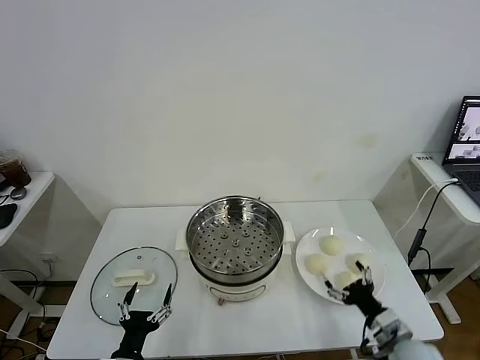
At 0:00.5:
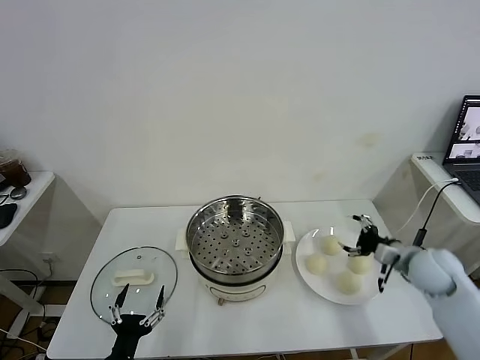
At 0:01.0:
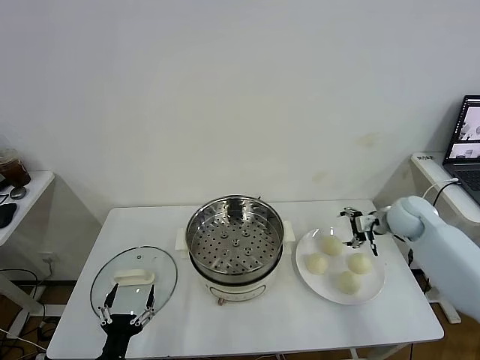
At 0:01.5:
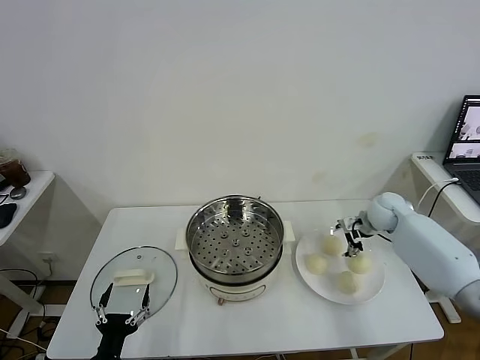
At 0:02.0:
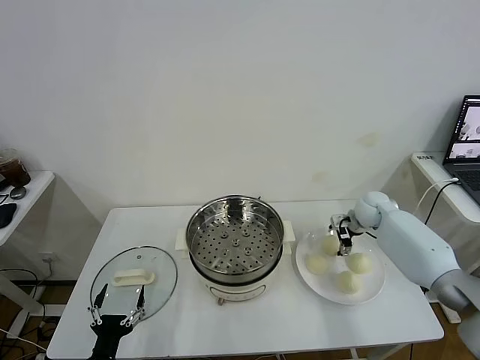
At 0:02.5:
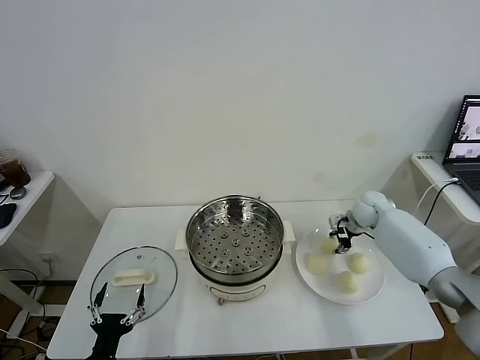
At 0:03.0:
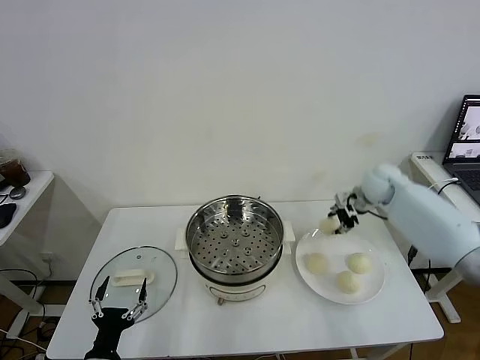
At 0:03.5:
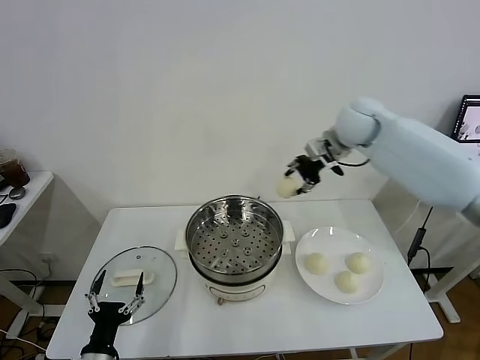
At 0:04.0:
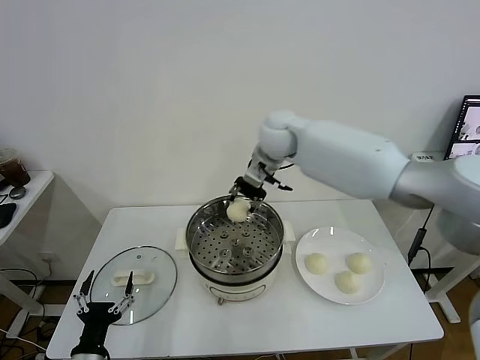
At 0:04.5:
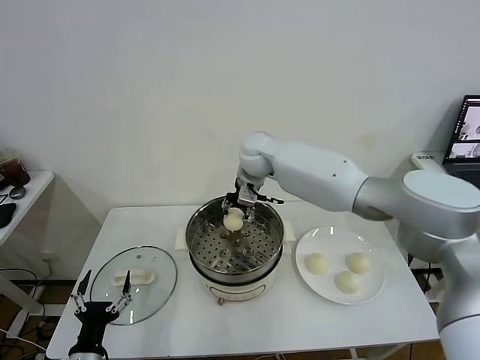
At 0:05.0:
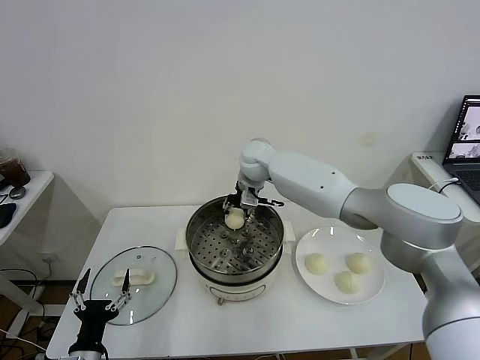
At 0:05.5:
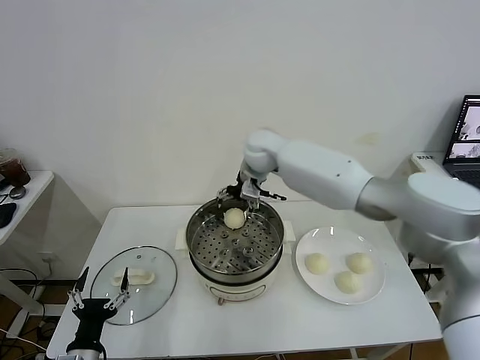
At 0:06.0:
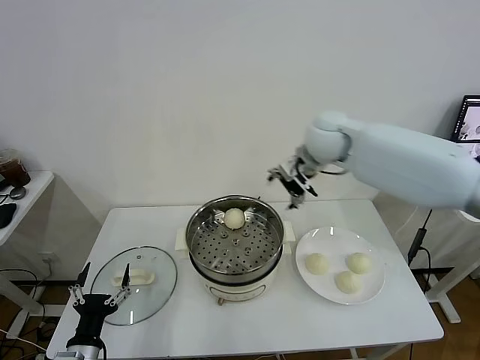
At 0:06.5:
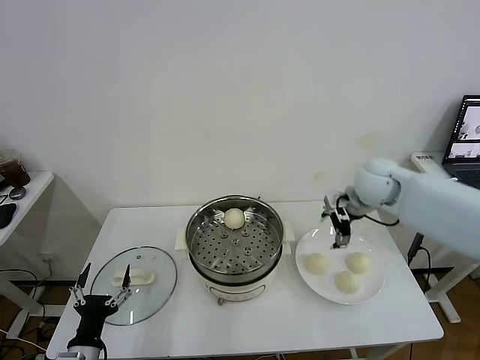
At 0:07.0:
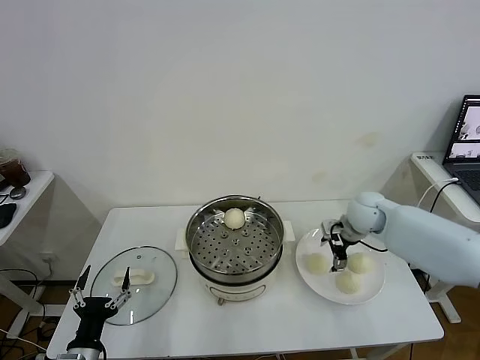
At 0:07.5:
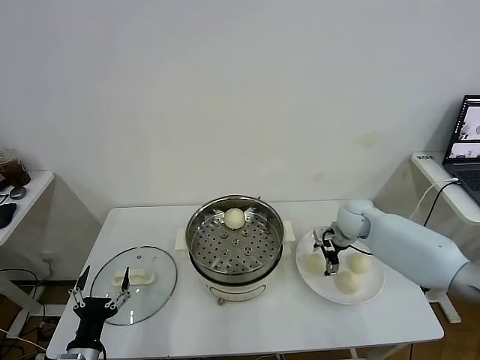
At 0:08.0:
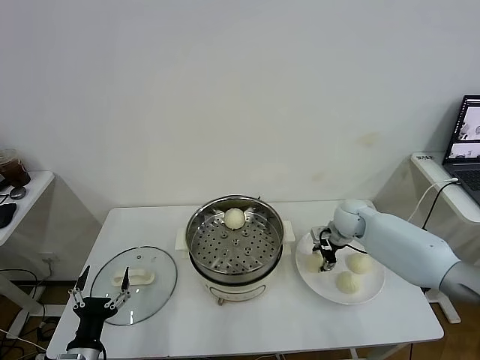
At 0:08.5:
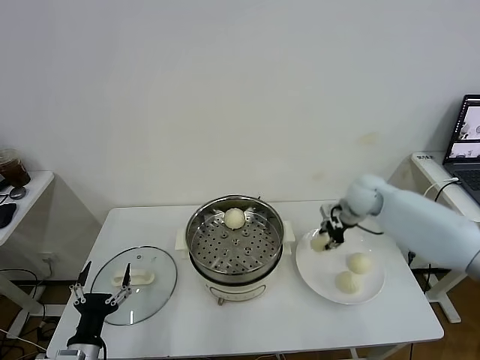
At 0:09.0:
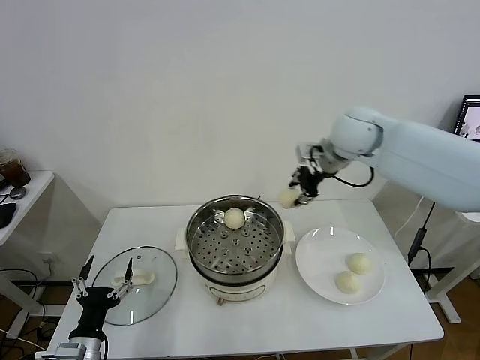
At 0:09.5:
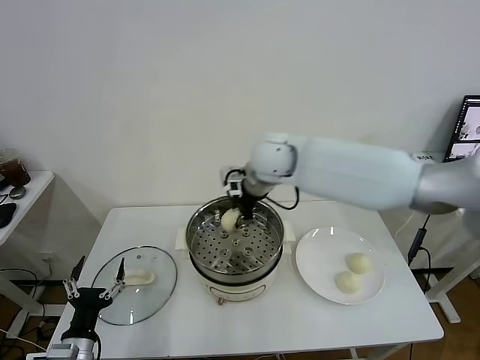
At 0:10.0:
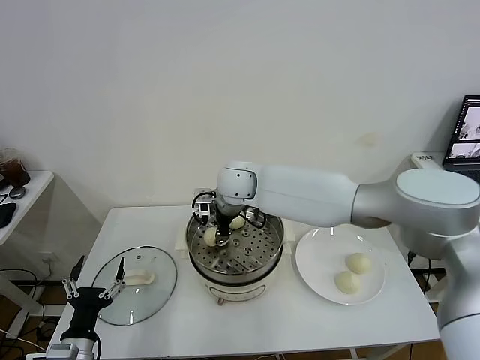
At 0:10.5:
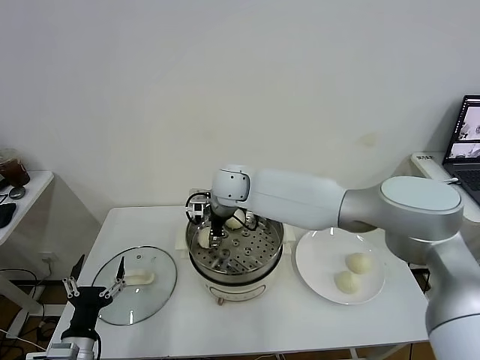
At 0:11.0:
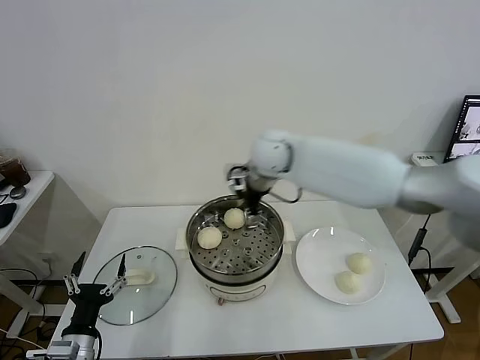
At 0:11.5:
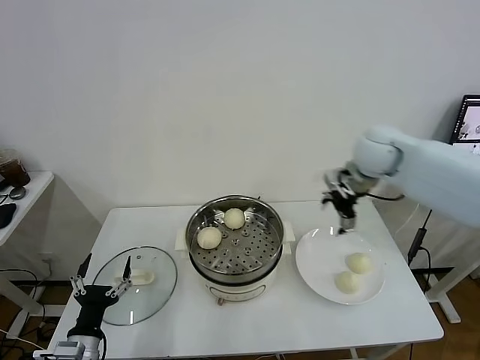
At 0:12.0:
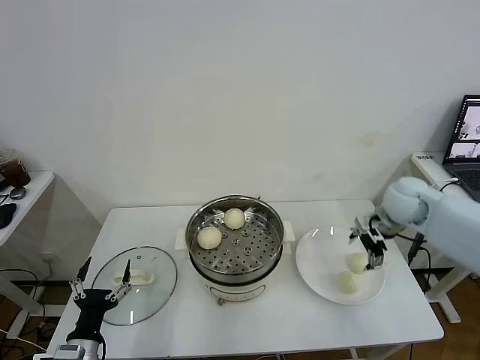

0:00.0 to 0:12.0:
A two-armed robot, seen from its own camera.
Task of the whole recording: take steamed baozi put them in steamer.
Step, 0:00.0 to 0:02.5: Grasp the baozi in the plate with right gripper.
Step, 0:03.0 to 0:05.0: Place the baozi on the steamer with right gripper.
Step, 0:05.5 to 0:08.0: Grasp the baozi in the plate with right gripper.
Step, 0:08.5 to 0:10.5: Place the baozi on the steamer with right gripper.
0:02.0 to 0:04.0: The right gripper is displaced to the left and upward by approximately 35 cm, and closes.
0:04.0 to 0:06.0: The right gripper is displaced to the right by approximately 10 cm, and opens.
0:06.0 to 0:08.0: The right gripper moves downward and to the right, roughly 25 cm, and closes.
0:08.0 to 0:10.0: The right gripper travels to the left and upward by some 35 cm, and closes its fingers.
0:10.0 to 0:12.0: The right gripper shifts some 35 cm to the right, and opens.

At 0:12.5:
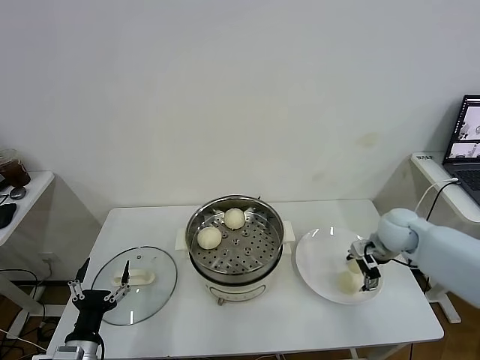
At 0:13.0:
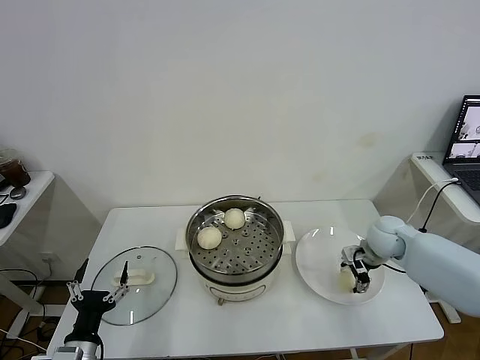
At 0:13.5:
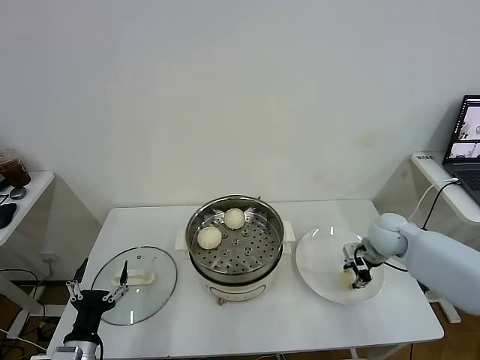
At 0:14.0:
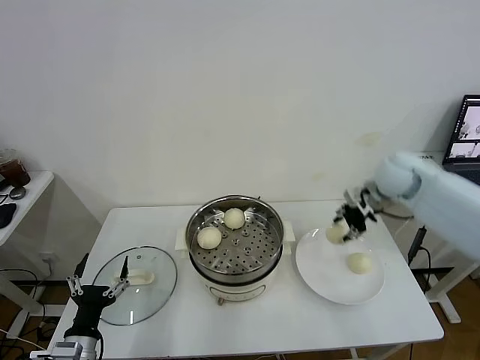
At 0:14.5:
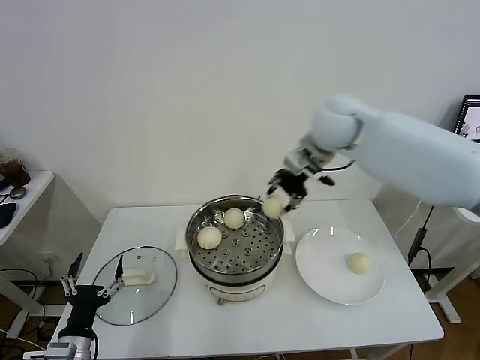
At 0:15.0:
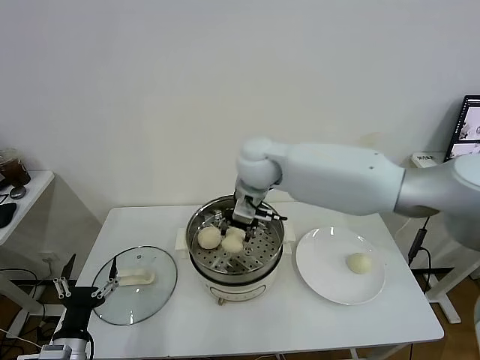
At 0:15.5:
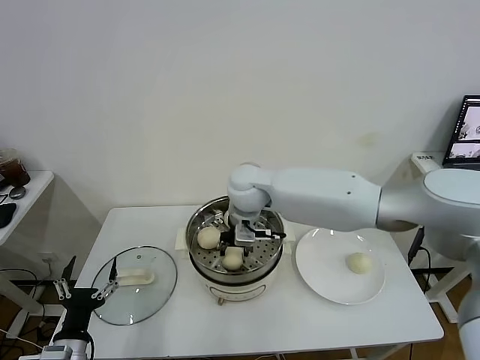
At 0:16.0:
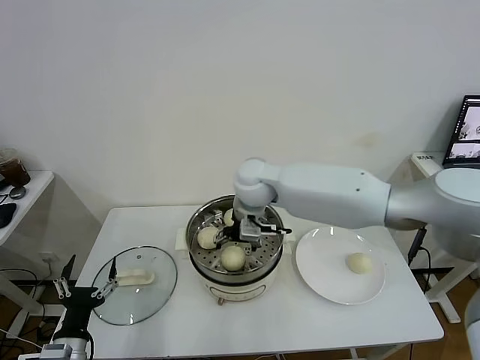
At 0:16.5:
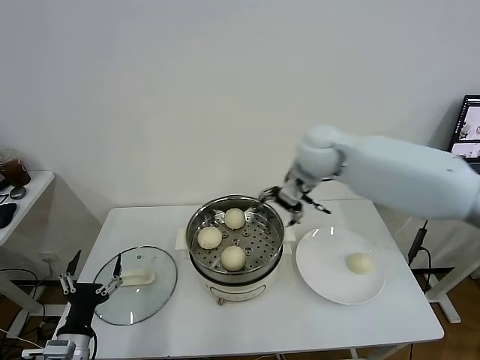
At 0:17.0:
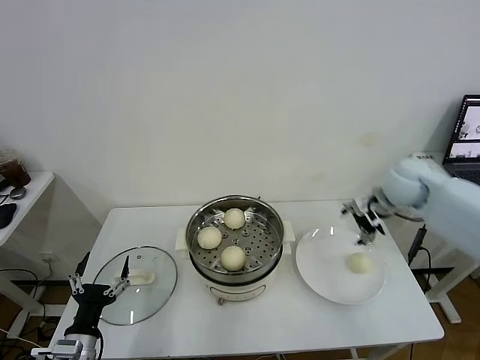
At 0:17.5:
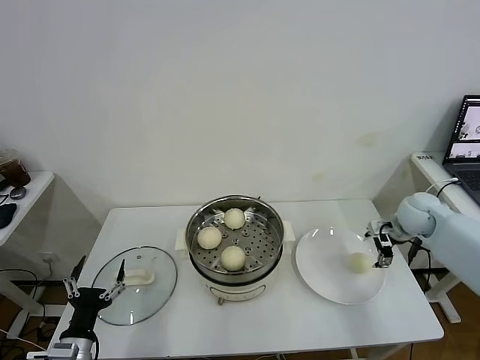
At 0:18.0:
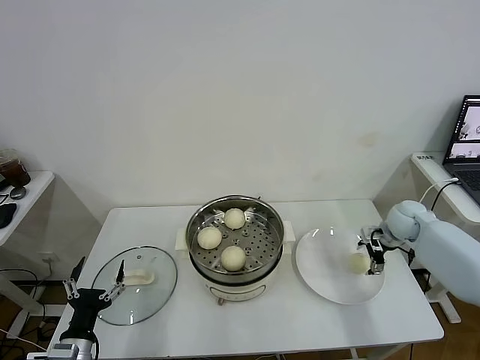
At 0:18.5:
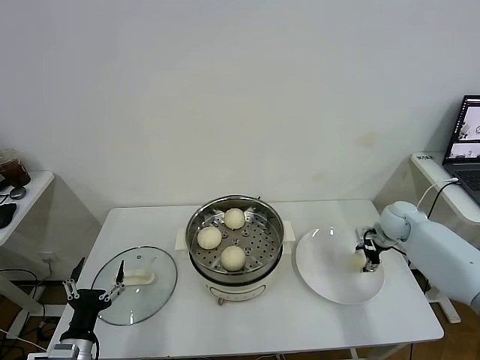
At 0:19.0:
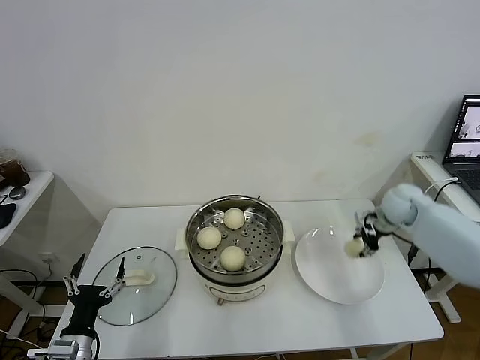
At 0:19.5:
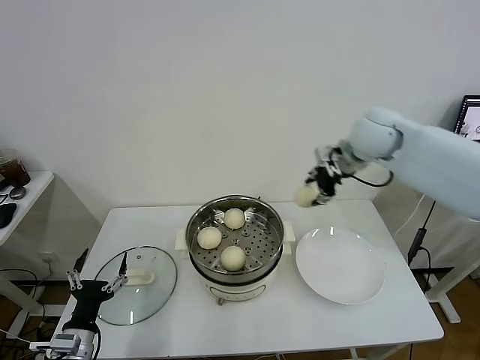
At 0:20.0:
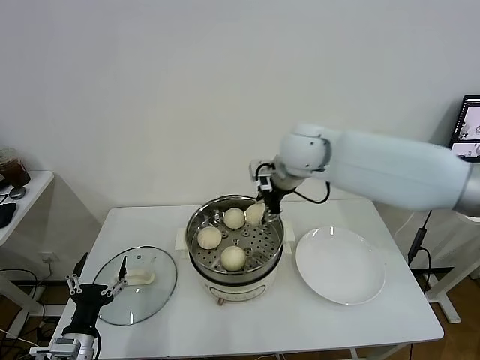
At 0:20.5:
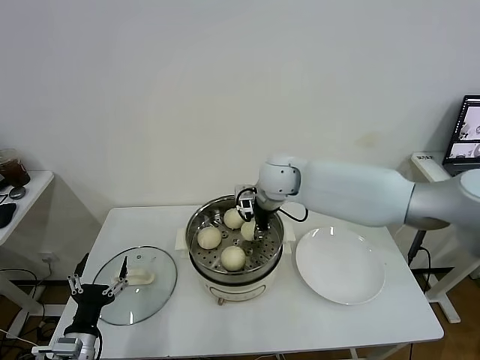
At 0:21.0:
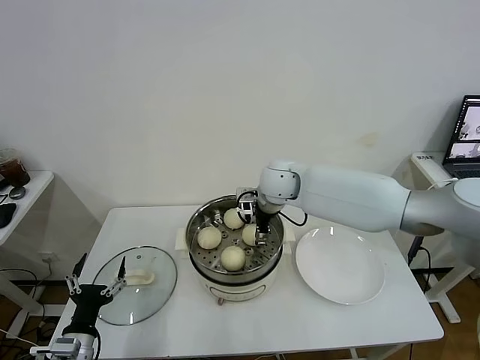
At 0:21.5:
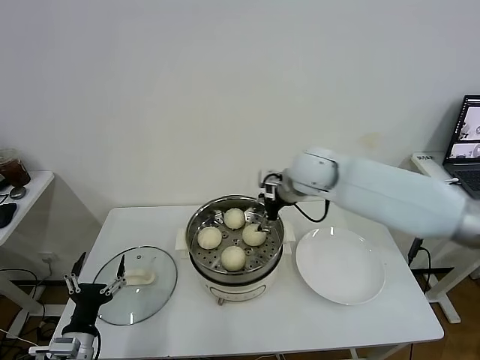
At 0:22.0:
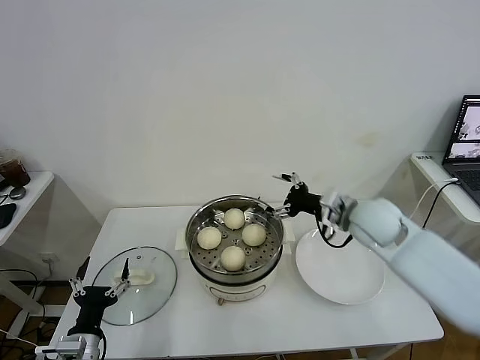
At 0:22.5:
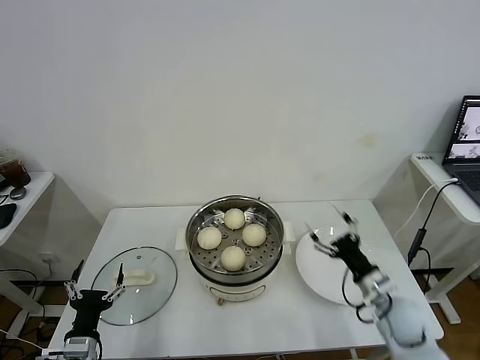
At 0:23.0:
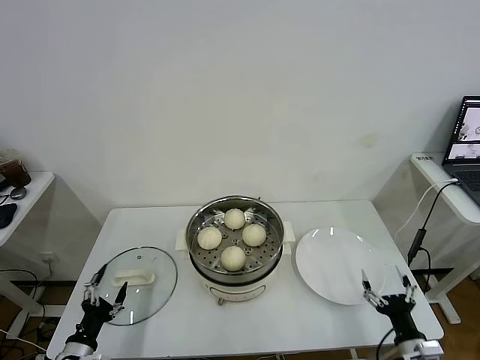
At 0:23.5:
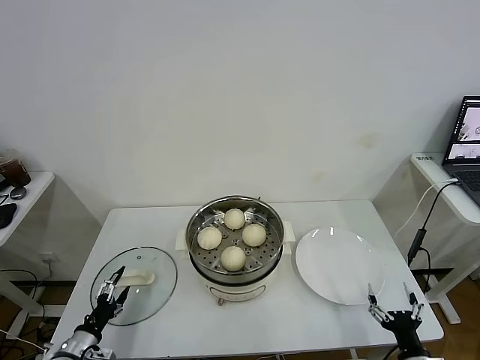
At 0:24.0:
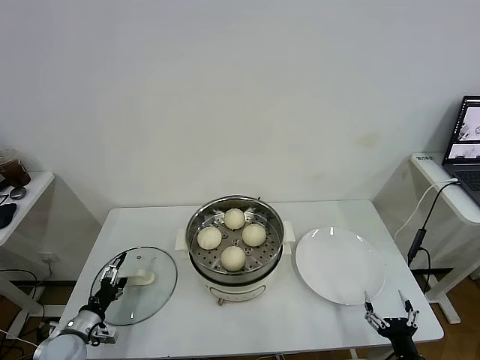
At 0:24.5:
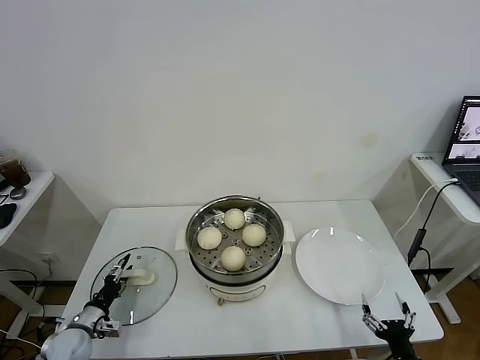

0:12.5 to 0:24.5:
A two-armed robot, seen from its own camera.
Task of the whole recording: take steamed baozi put them in steamer.
Step, 0:13.5 to 0:15.5: Place the baozi on the steamer with right gripper.
Step, 0:16.5 to 0:18.5: Grasp the baozi in the plate with right gripper.
Step, 0:19.0 to 0:21.0: Place the baozi on the steamer with right gripper.
0:12.5 to 0:14.5: The right gripper travels upward and to the left by about 30 cm, and closes up.
0:14.5 to 0:16.5: The right gripper goes roughly 5 cm downward, moves about 15 cm to the left and comes back, and opens up.
0:16.5 to 0:18.5: The right gripper shifts roughly 35 cm to the right and downward, and closes.
0:18.5 to 0:20.5: The right gripper travels to the left and upward by roughly 35 cm.
0:20.5 to 0:22.5: The right gripper moves to the right, downward and backward, some 40 cm, and opens.
0:22.5 to 0:24.5: The right gripper travels backward and downward by some 20 cm, while the left gripper shifts approximately 15 cm forward, to the left and downward, and closes.

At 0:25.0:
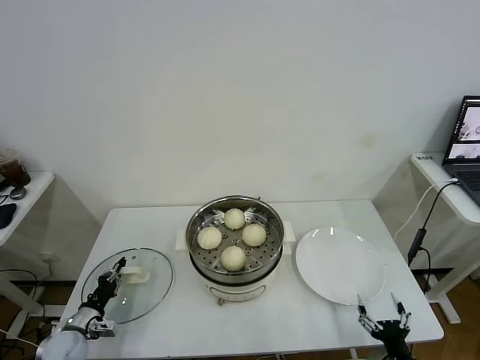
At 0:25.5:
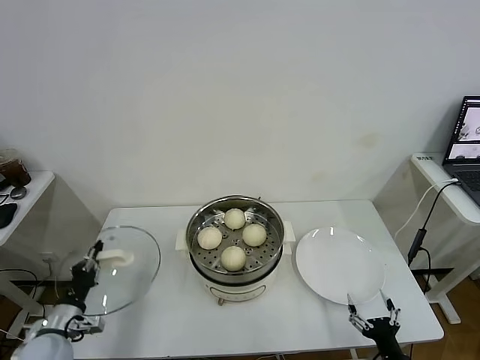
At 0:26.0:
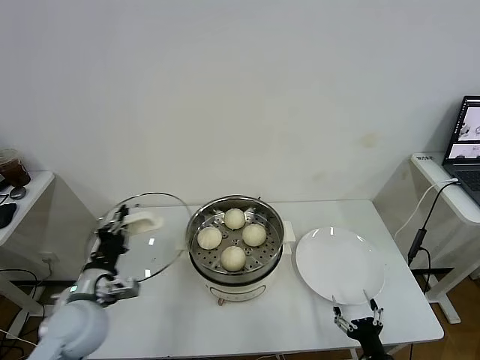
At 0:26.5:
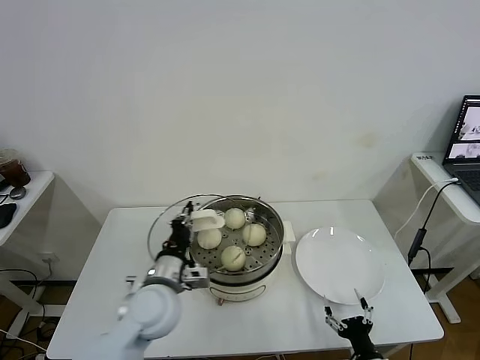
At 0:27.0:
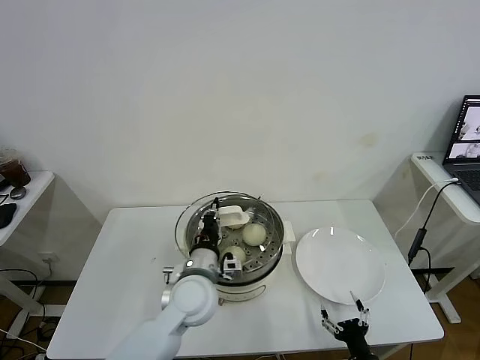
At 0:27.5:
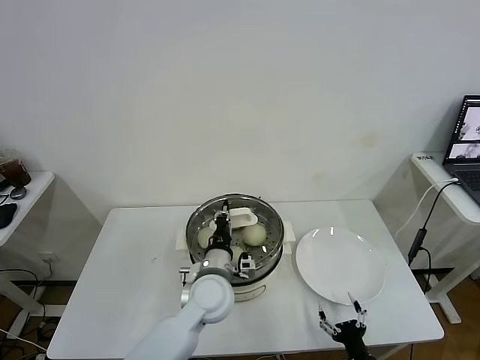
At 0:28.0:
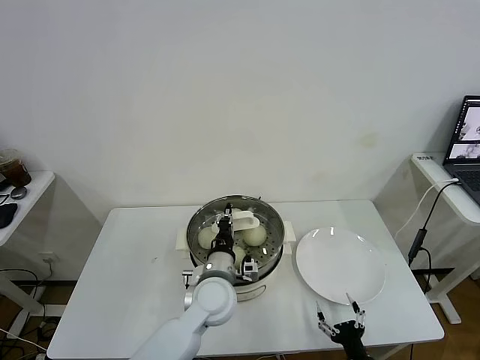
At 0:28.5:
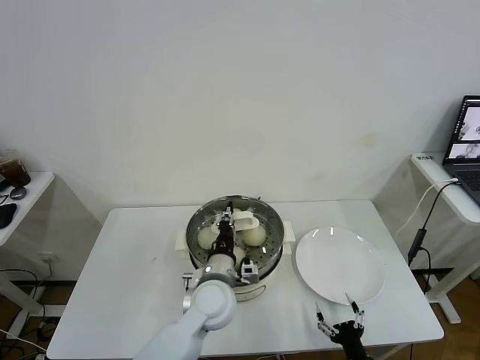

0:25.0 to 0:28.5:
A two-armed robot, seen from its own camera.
Task of the whole recording: take steamed baozi put them in steamer.
0:25.0 to 0:27.0: The right gripper heads to the left, covering roughly 5 cm. Meanwhile the left gripper moves to the right and upward, roughly 40 cm.
0:27.0 to 0:28.5: The left gripper changes place by roughly 5 cm.
